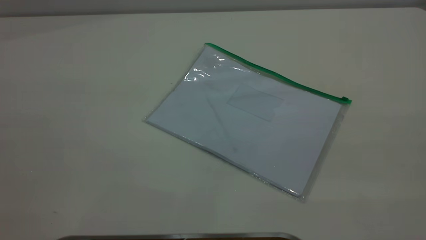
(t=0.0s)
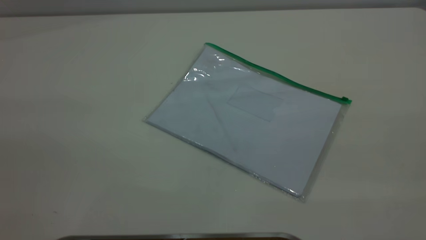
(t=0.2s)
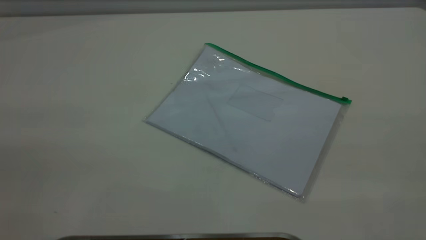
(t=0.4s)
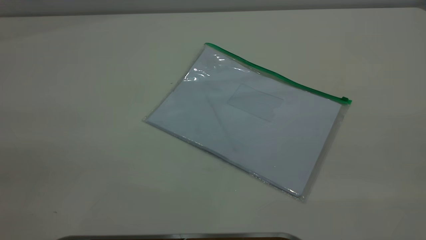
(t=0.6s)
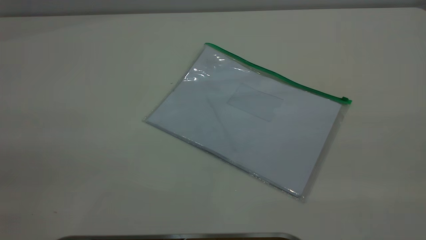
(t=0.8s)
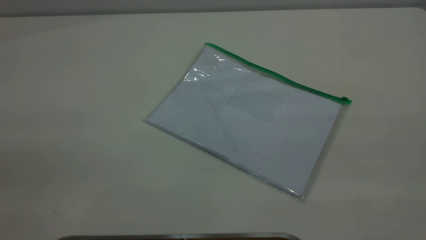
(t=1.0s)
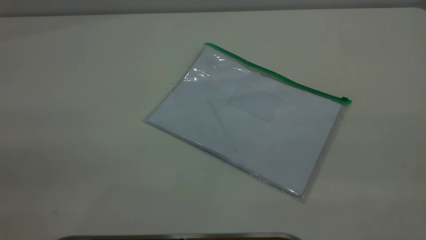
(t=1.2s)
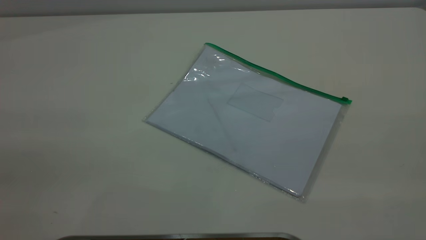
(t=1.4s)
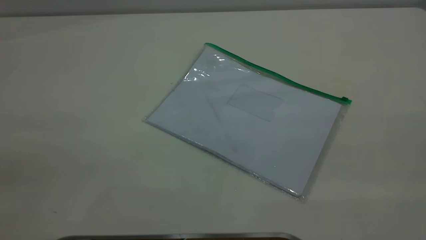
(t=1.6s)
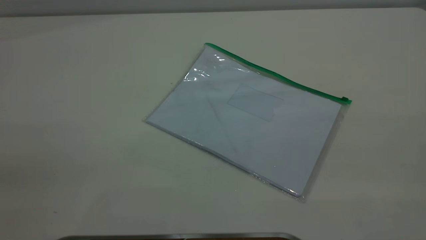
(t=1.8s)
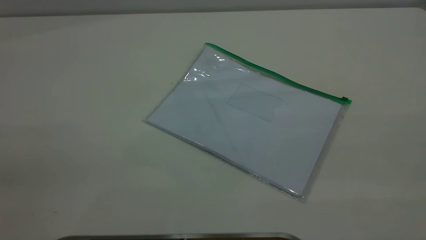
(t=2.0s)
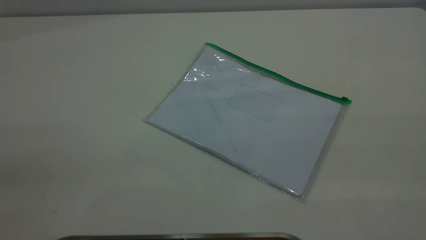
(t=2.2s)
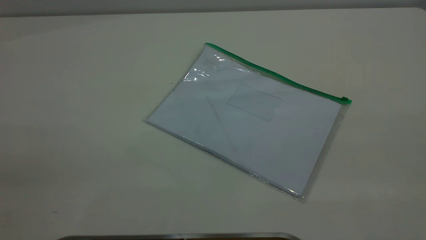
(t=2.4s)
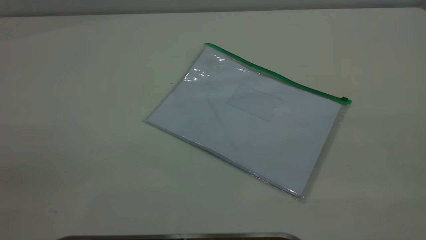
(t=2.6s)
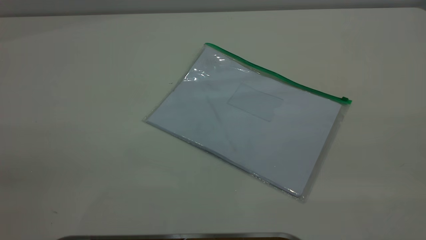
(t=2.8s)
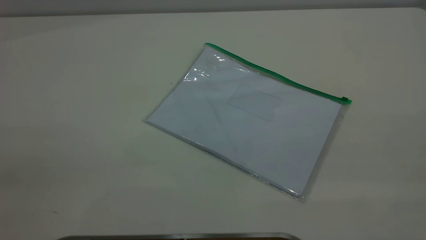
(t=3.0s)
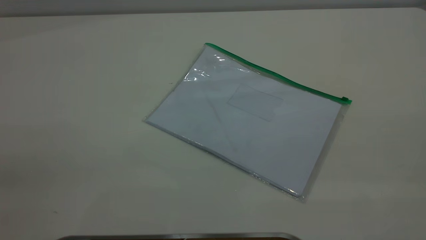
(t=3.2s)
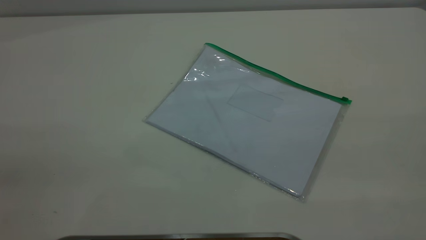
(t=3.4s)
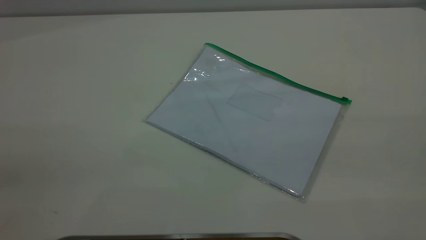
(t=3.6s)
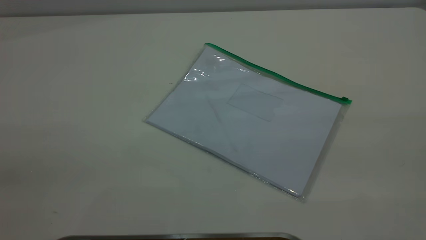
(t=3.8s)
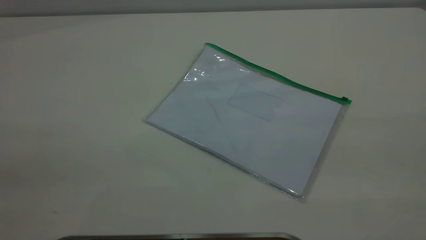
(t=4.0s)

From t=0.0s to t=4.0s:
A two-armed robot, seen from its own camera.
From t=2.6s to t=4.0s: The two grippers keep their place.
